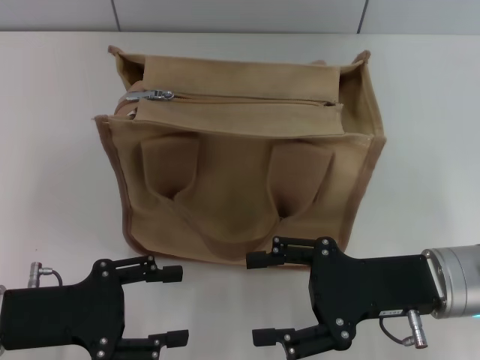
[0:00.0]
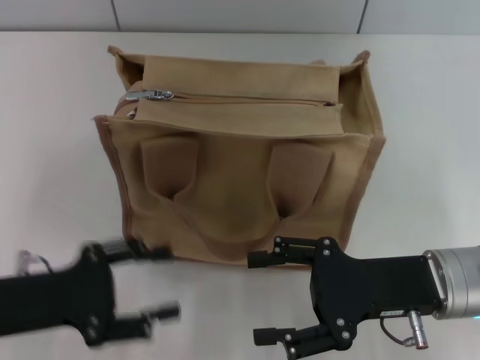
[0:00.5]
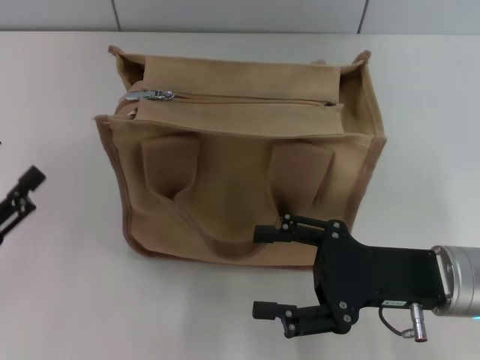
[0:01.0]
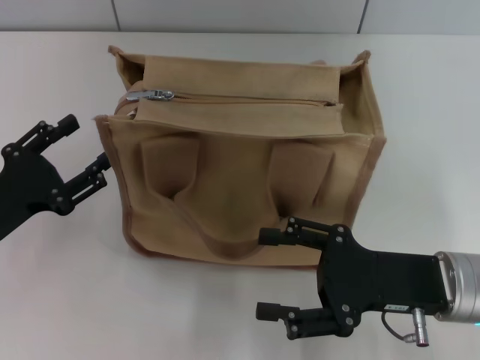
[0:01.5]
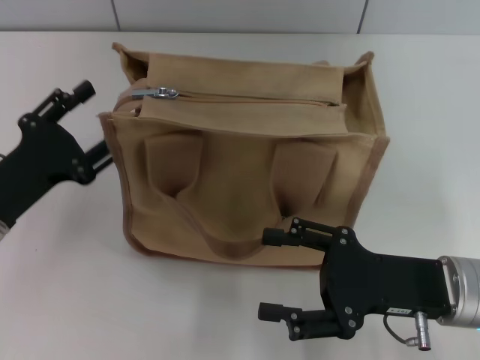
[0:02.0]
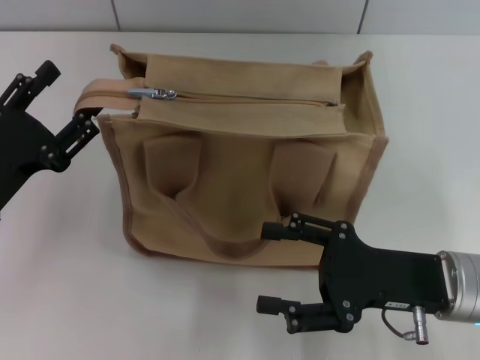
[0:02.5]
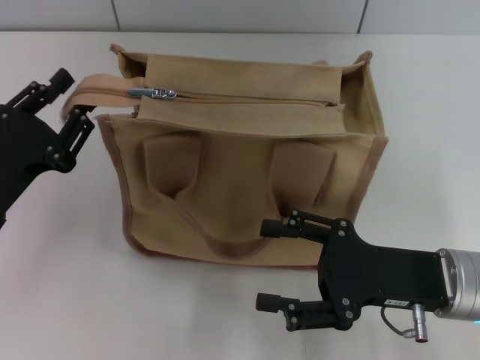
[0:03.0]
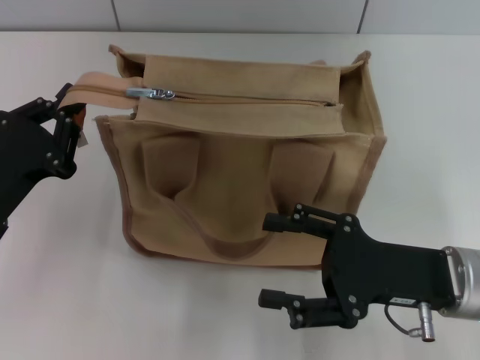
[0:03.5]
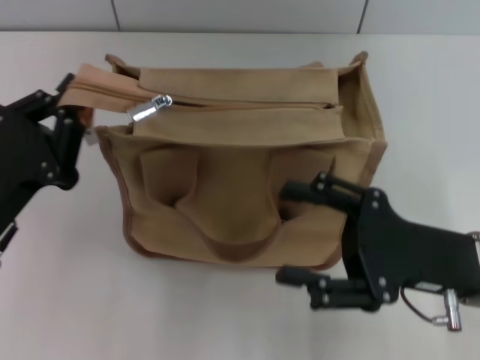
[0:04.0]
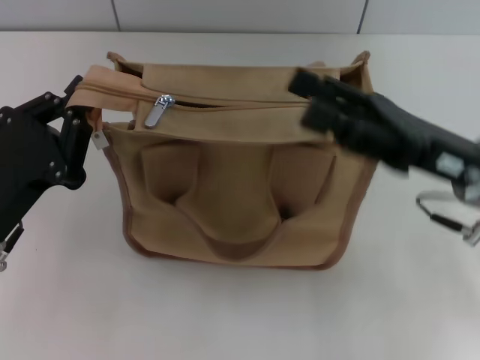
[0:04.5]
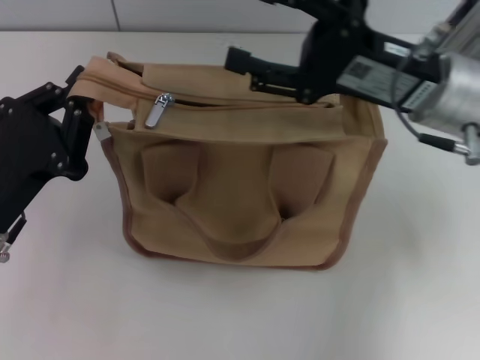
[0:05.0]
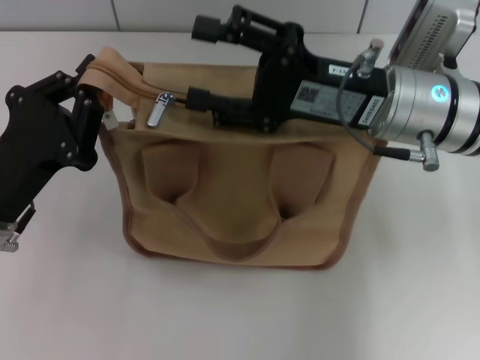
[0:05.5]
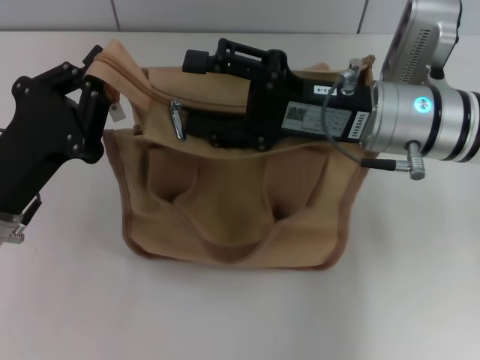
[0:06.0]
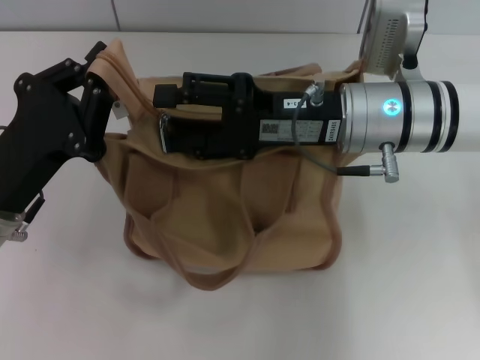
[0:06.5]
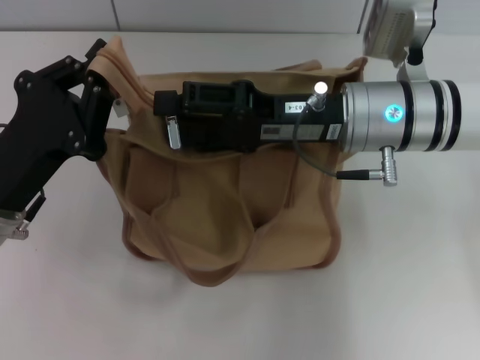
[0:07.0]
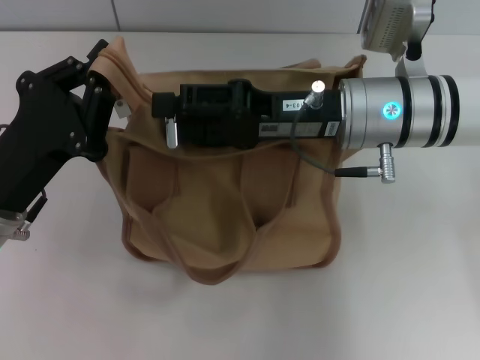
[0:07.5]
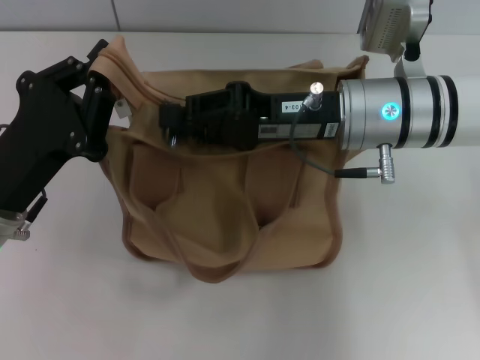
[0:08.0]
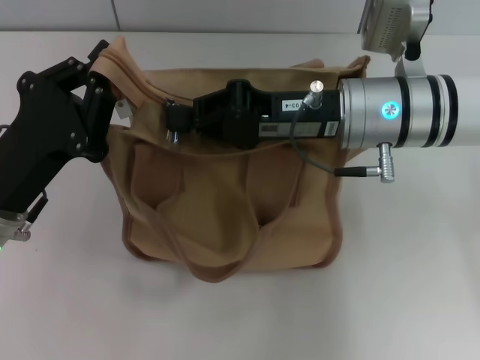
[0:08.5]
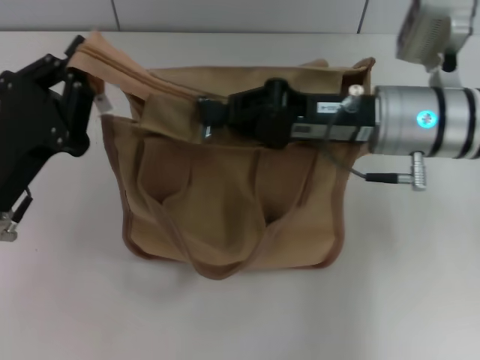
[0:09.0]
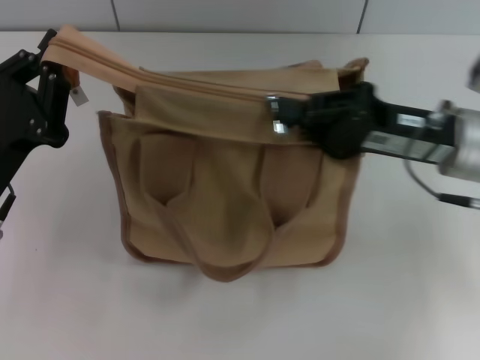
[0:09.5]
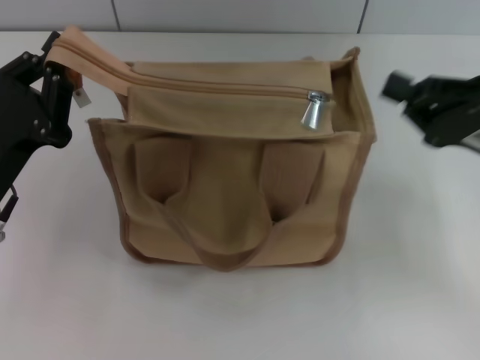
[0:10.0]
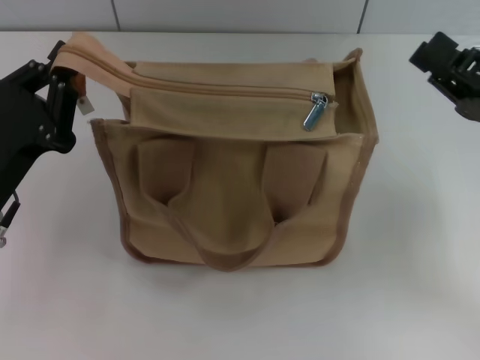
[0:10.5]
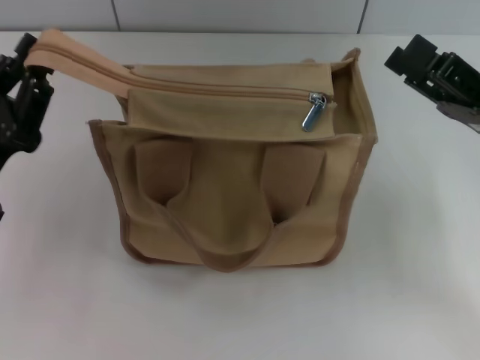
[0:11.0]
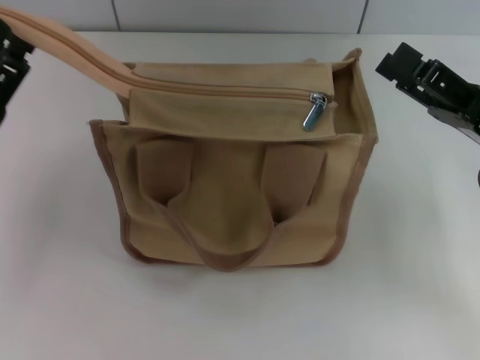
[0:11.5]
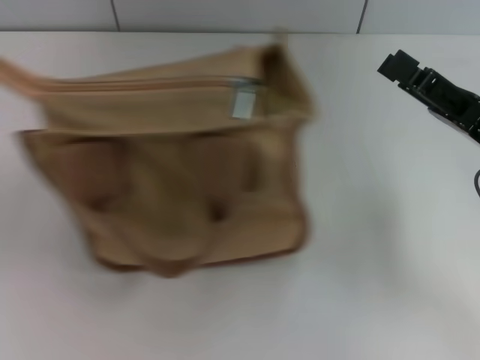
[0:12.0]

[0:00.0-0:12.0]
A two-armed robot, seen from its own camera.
Step, 0:00.0 to 0:09.5: Pull up the zipper with your right hand.
0:00.0 to 0:02.0: The left gripper moves forward, about 5 cm.
0:02.0 to 0:04.0: The left gripper closes.
0:04.0 to 0:06.0: The right gripper shifts about 15 cm forward, to the left and upward.
0:06.0 to 0:08.0: The right gripper closes.
0:08.0 to 0:10.0: The right gripper travels to the right by roughly 15 cm, and closes its fingers.
0:10.0 to 0:12.0: The right gripper opens up; the left gripper travels to the left by approximately 10 cm, and opens its fingers.

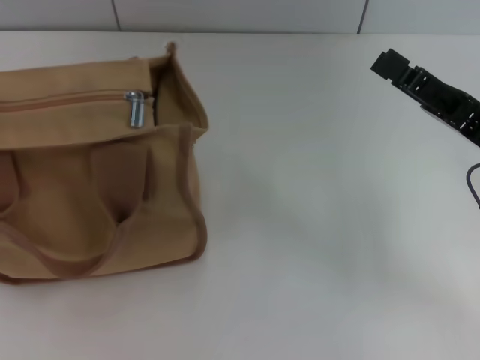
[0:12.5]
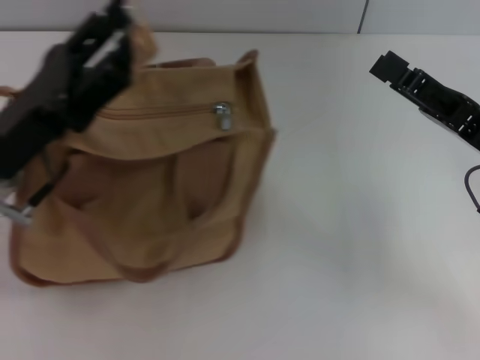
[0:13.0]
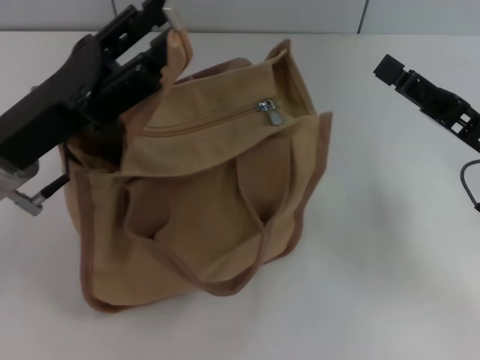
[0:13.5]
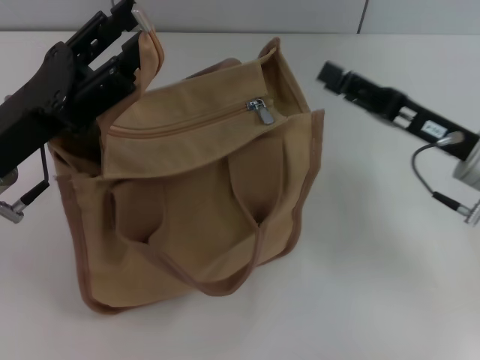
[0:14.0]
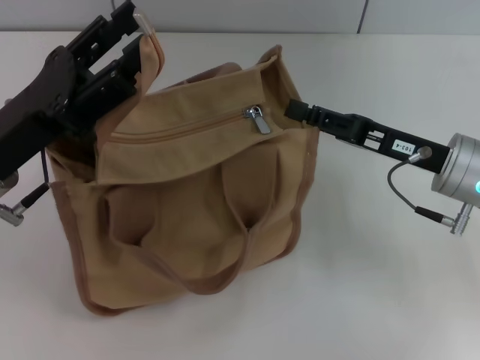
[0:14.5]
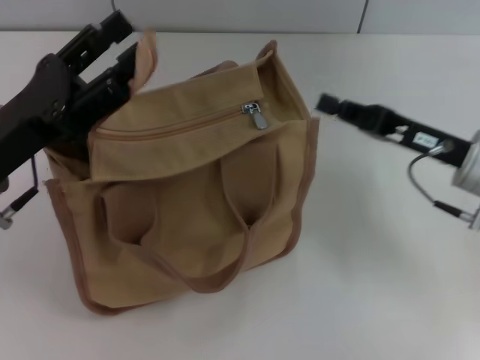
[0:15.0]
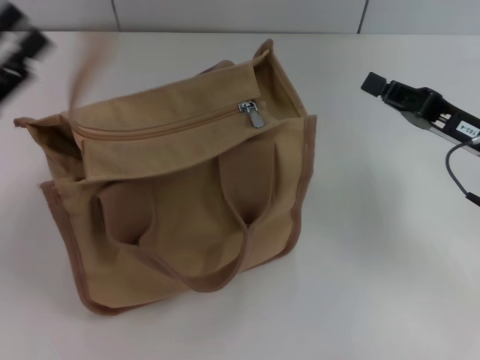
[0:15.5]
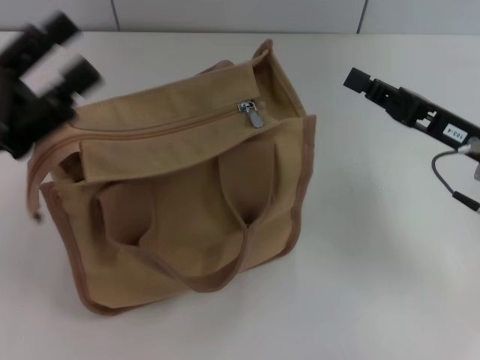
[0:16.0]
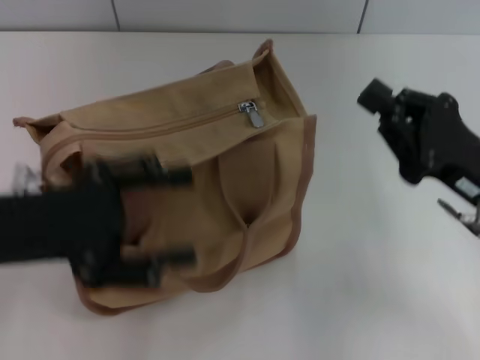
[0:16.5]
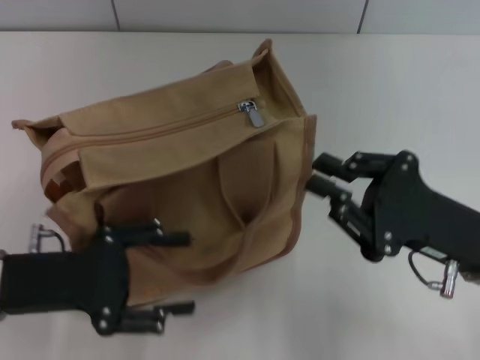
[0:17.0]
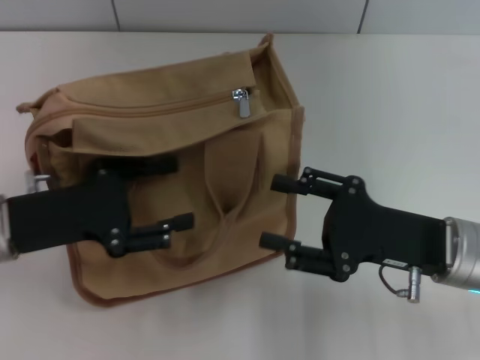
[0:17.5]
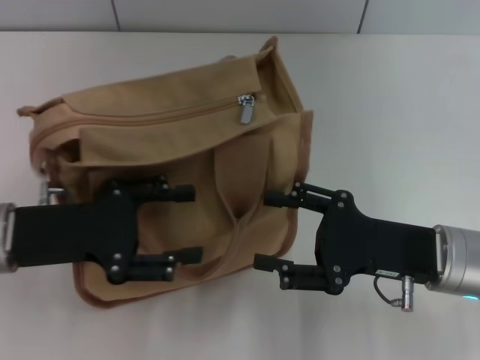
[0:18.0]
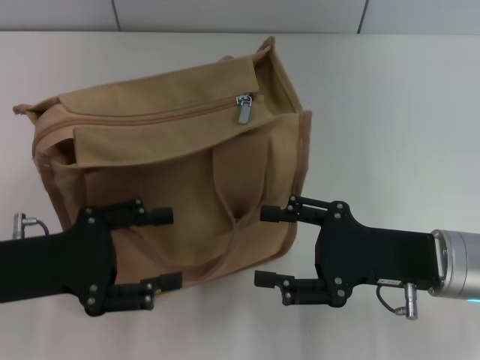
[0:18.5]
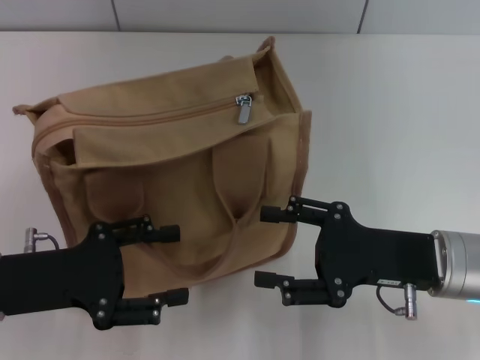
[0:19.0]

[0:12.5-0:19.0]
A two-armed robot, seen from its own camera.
Step, 0:12.5 to 0:15.5: Grab the zipper with your left hand.
0:12.5 to 0:14.5: The left gripper heads to the right, covering roughly 10 cm, while the right gripper changes place by approximately 5 cm.
0:14.5 to 0:17.0: The right gripper travels backward by roughly 10 cm, and closes its fingers; the left gripper changes place by approximately 5 cm.
0:17.0 to 0:19.0: The right gripper opens up.
